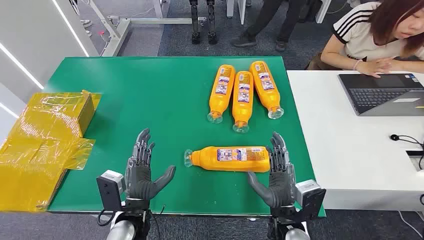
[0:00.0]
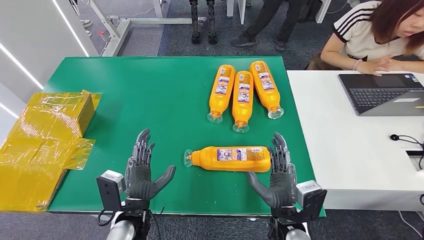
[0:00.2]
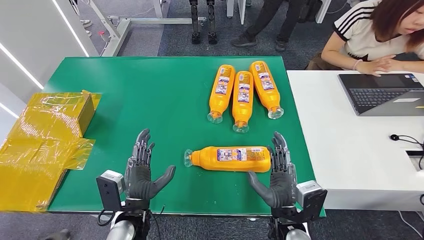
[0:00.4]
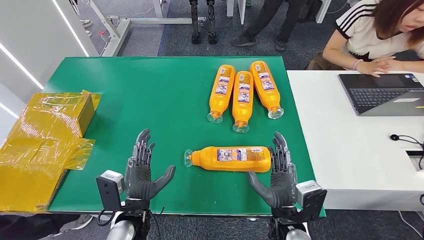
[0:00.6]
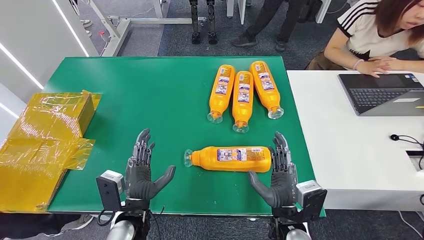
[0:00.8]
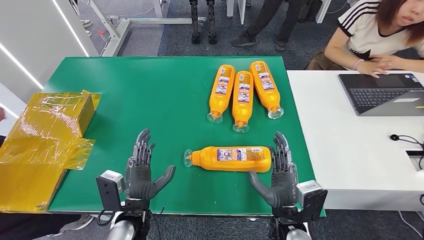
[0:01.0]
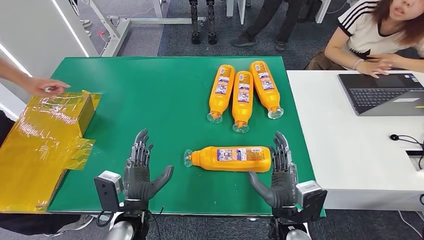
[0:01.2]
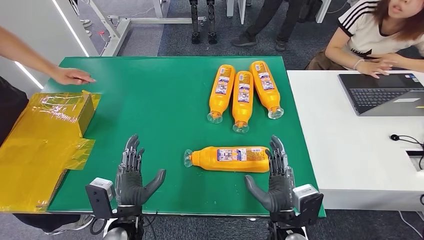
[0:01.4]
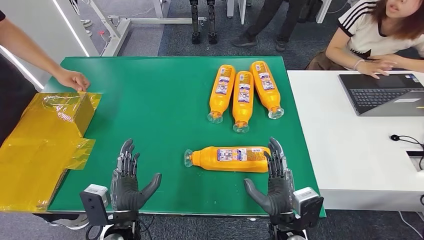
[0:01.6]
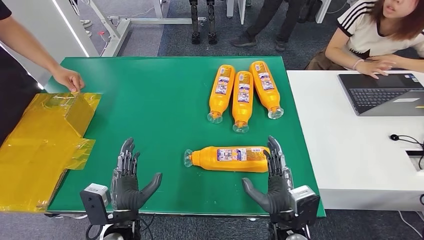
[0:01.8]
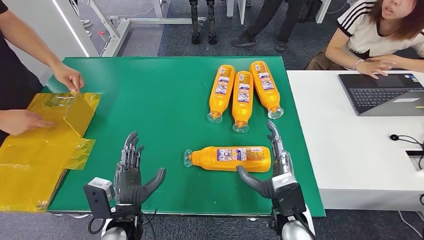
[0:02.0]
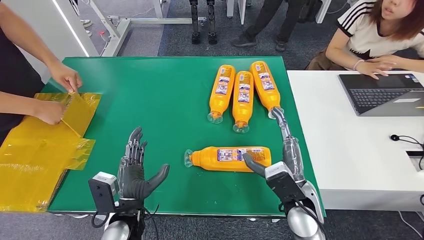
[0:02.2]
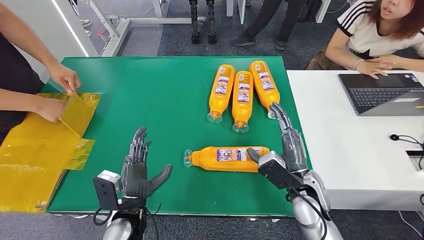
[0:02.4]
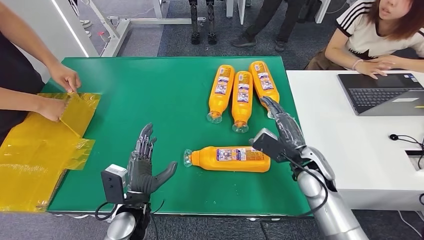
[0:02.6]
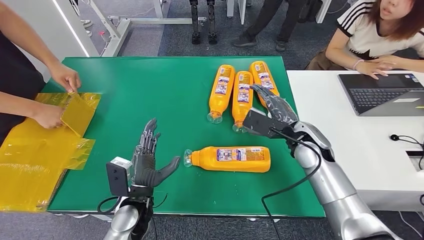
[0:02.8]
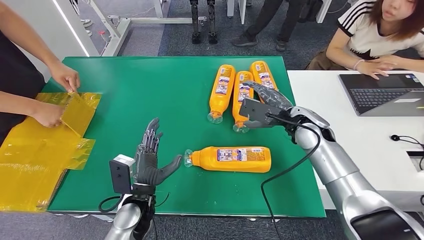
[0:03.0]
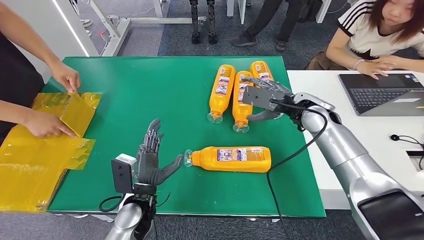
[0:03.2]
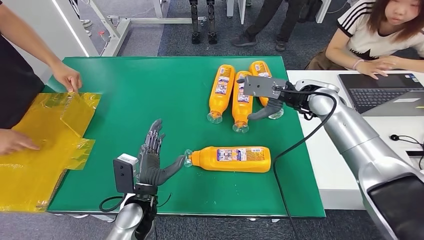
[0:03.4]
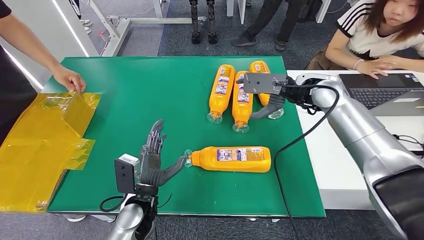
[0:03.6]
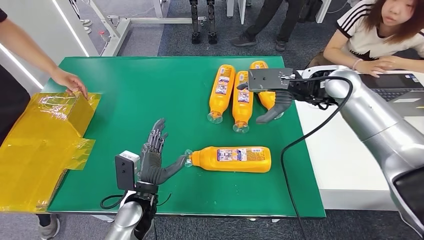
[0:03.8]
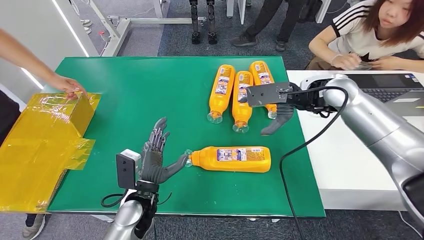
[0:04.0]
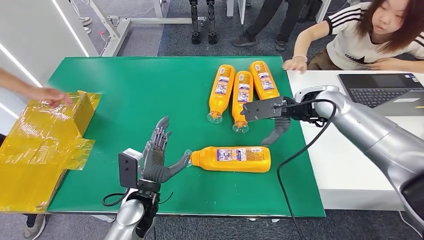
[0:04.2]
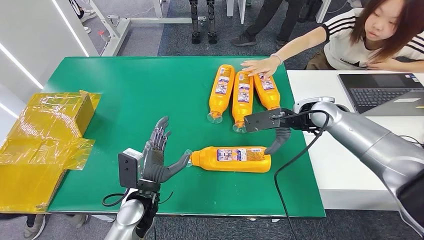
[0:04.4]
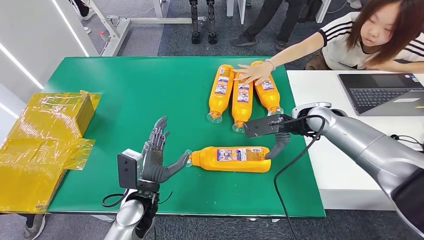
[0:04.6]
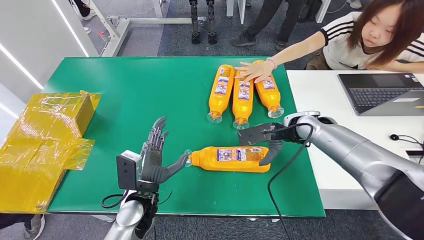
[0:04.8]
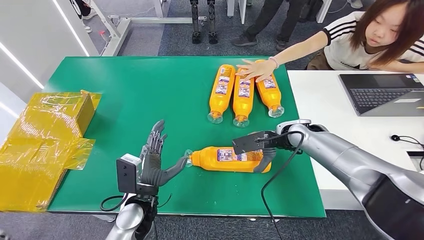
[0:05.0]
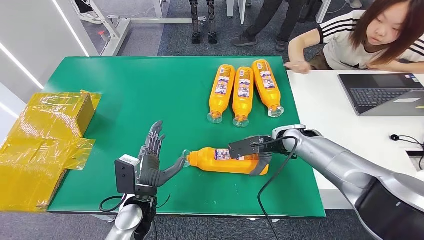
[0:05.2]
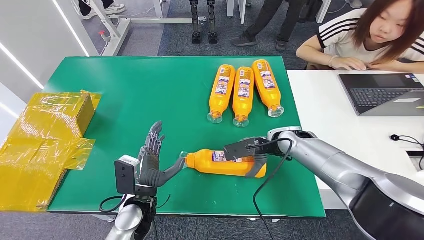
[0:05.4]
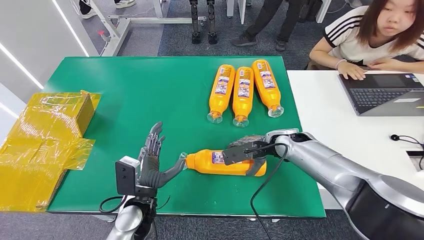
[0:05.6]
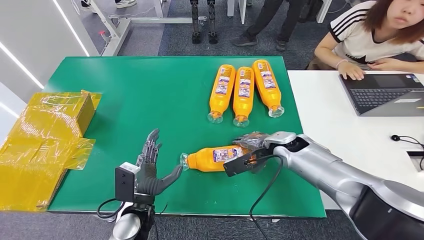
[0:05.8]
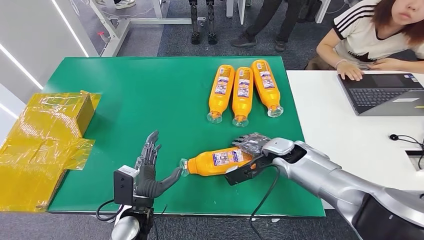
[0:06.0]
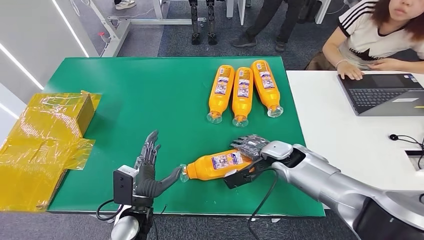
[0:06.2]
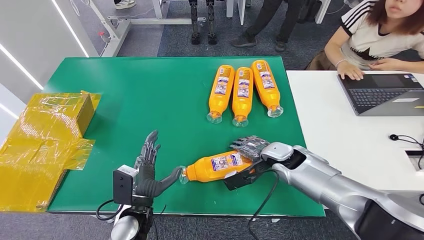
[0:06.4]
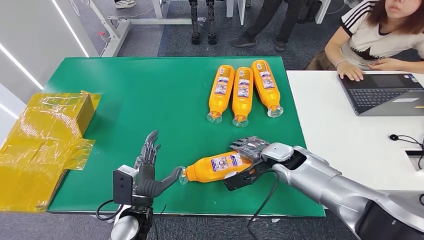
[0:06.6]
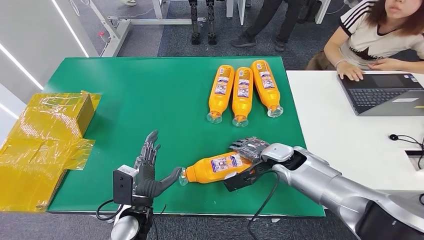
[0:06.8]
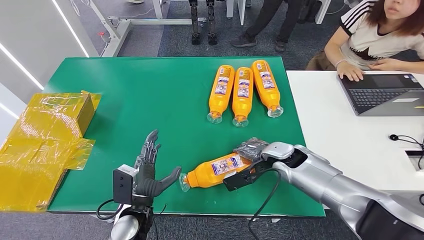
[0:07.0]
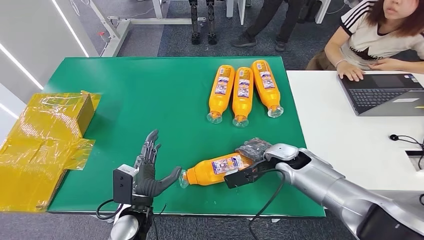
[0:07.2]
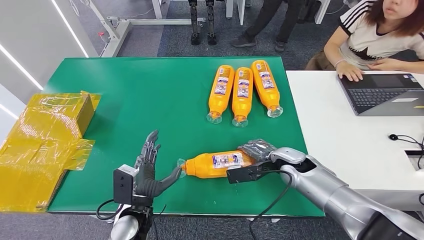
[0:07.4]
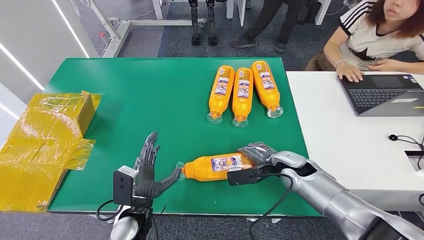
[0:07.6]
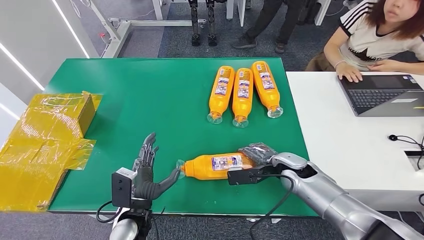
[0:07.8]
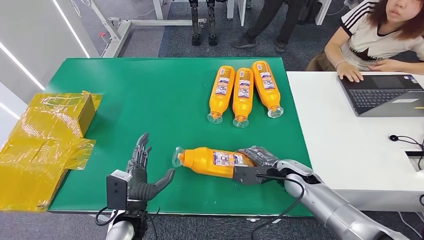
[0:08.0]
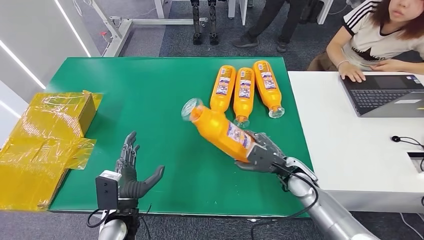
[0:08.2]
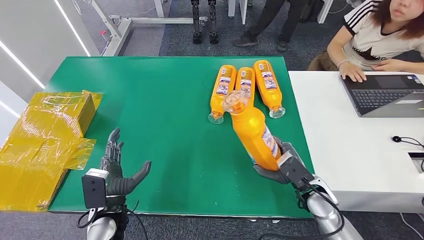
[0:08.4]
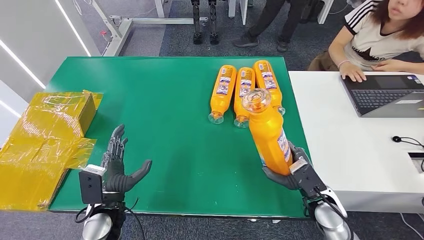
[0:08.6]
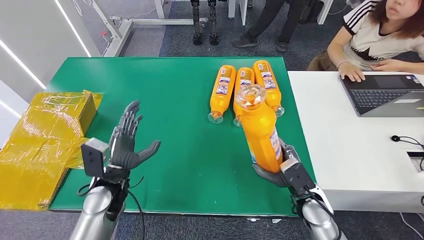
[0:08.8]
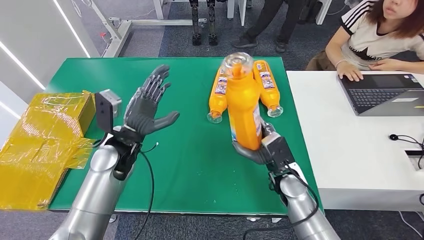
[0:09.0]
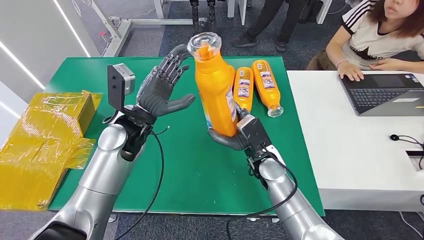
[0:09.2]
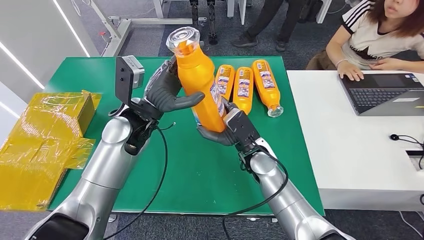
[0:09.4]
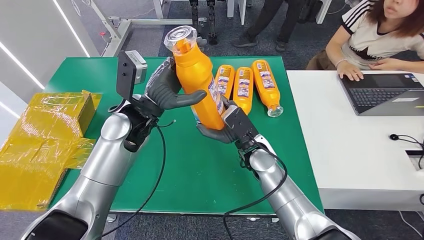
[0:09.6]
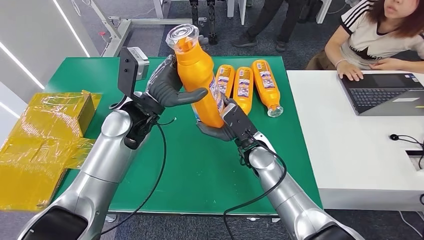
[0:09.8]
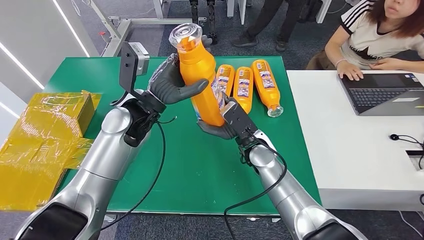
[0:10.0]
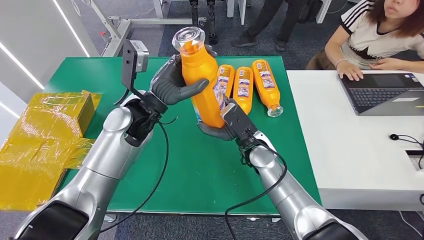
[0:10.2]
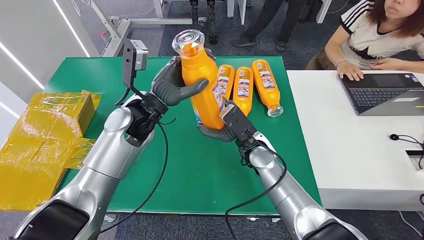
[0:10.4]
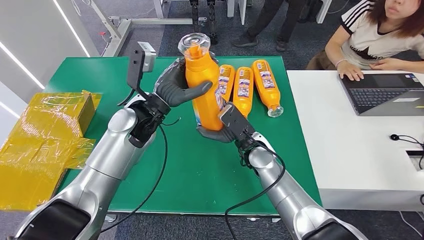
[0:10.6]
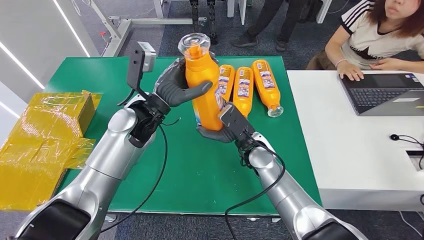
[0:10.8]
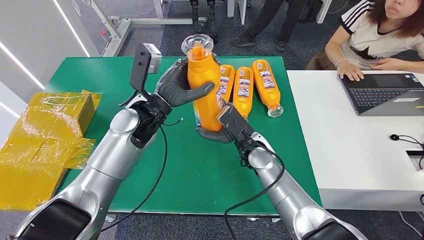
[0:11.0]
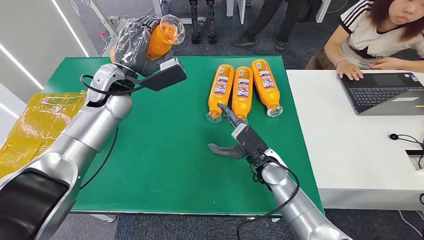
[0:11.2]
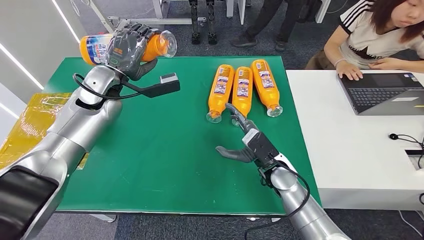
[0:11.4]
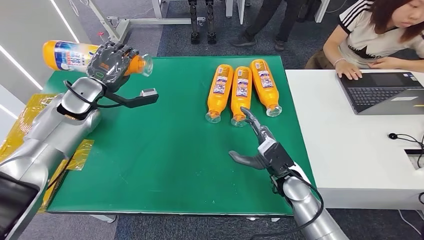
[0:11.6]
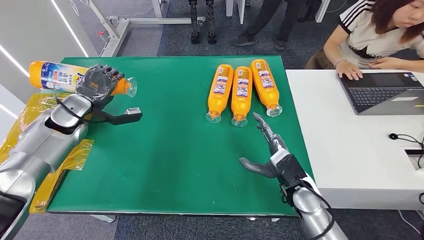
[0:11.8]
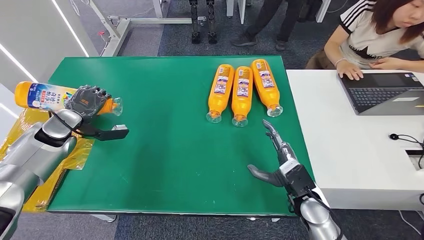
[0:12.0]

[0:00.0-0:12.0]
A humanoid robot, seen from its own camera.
Step, 0:00.0 to 0:08.8: Pick up the bottle from the table.
0:01.6 to 0:03.0: The right hand is displaced forward and upward by about 25 cm. The left hand travels forward by some 5 cm.
0:06.0 to 0:07.6: The right hand changes place by approximately 5 cm.

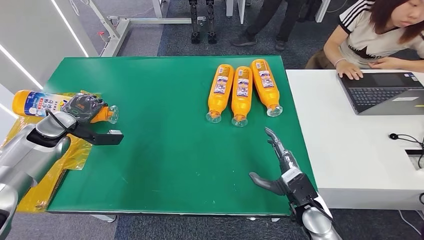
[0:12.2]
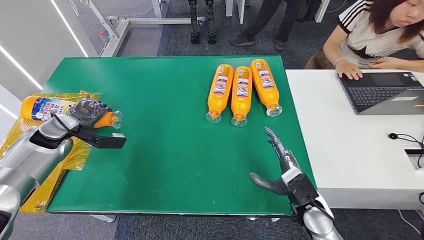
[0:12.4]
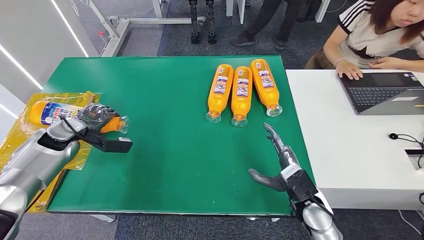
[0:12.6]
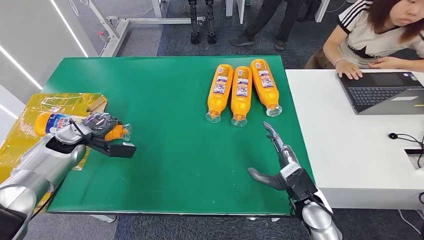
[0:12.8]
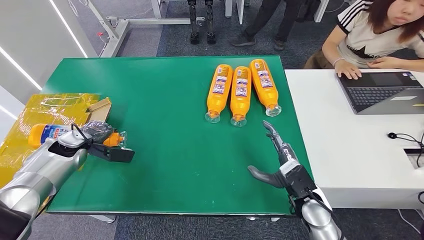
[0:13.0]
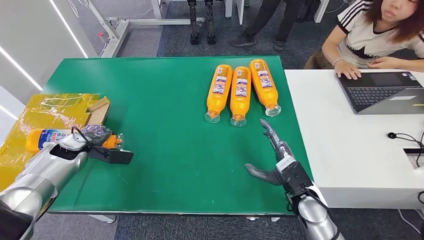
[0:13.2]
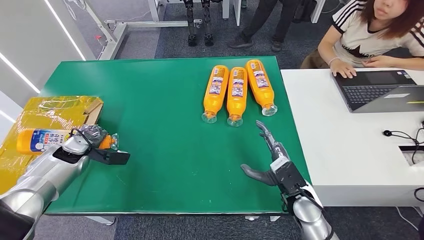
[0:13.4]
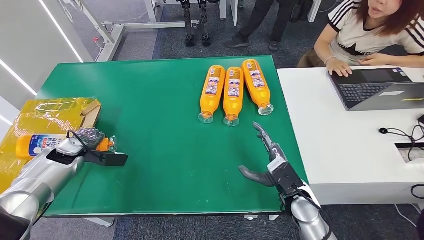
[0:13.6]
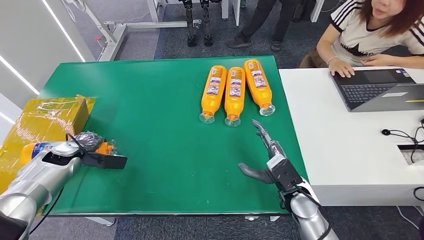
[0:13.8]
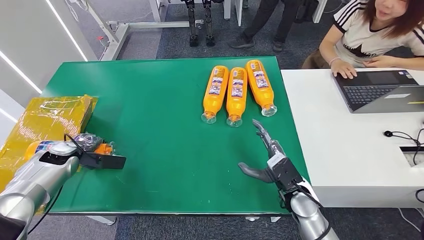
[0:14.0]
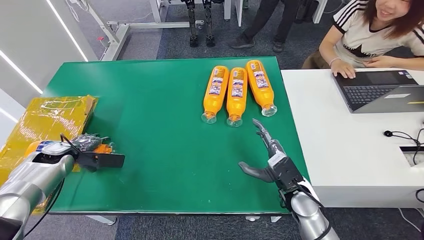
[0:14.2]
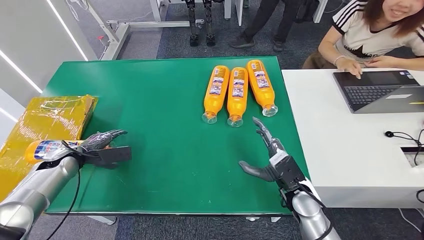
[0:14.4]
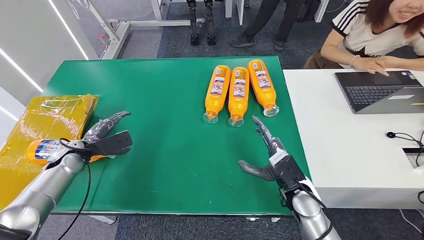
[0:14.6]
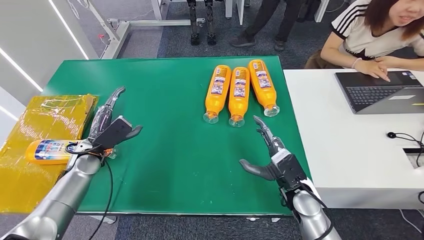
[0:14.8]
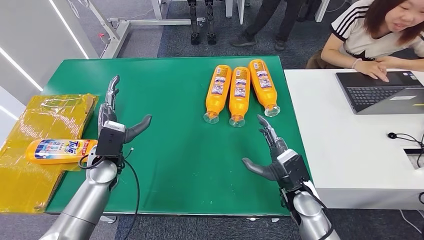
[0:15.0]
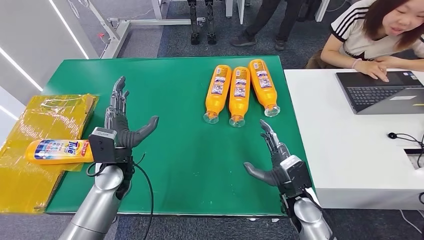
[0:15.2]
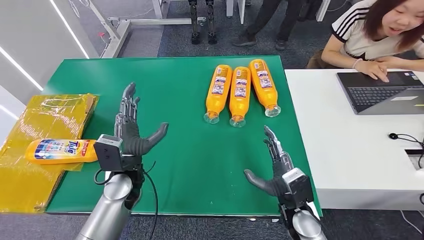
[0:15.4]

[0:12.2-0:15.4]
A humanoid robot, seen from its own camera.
Step, 0:12.2 to 0:15.2: Turn the bottle to the front side.
